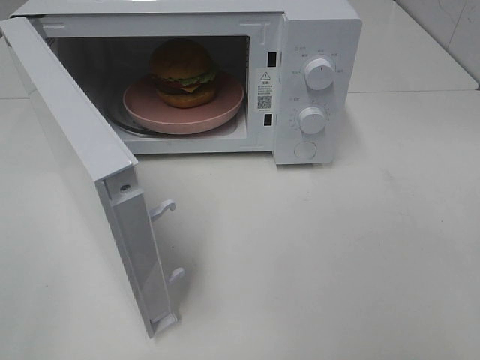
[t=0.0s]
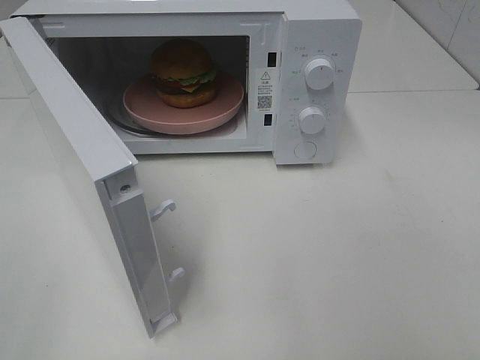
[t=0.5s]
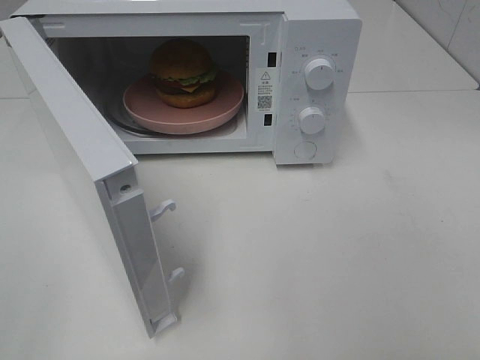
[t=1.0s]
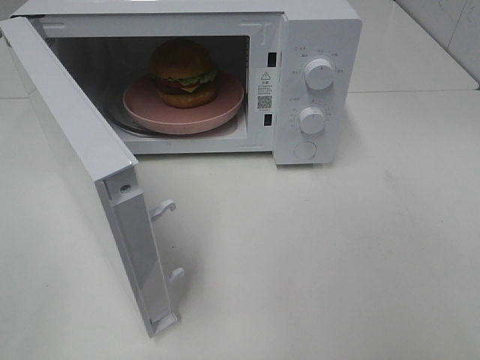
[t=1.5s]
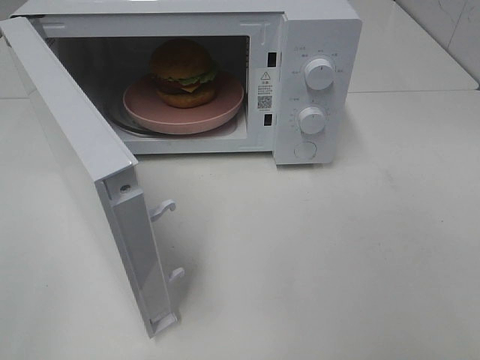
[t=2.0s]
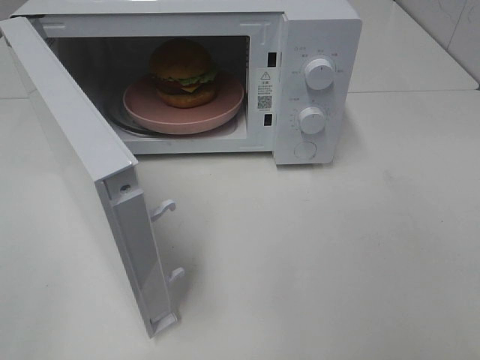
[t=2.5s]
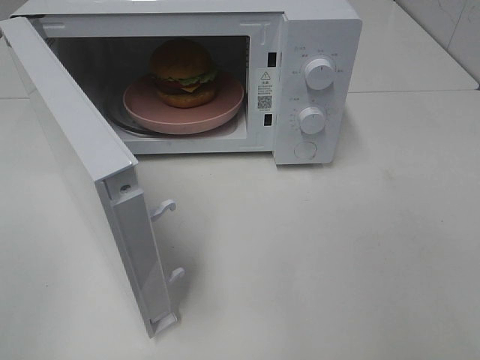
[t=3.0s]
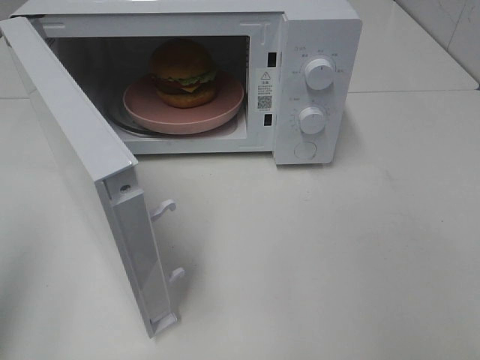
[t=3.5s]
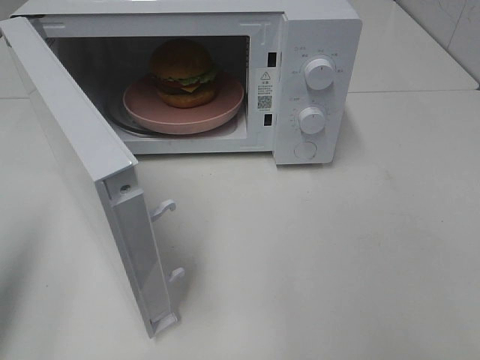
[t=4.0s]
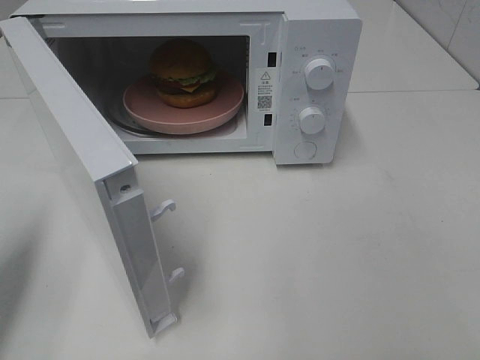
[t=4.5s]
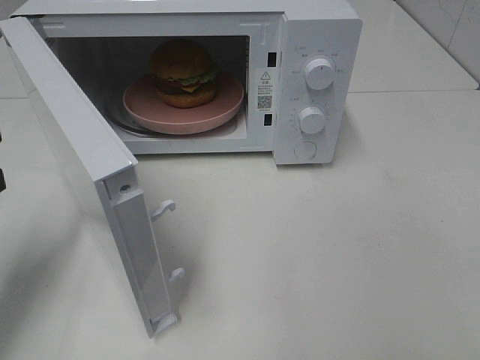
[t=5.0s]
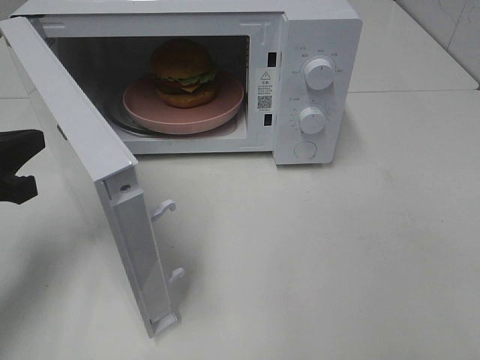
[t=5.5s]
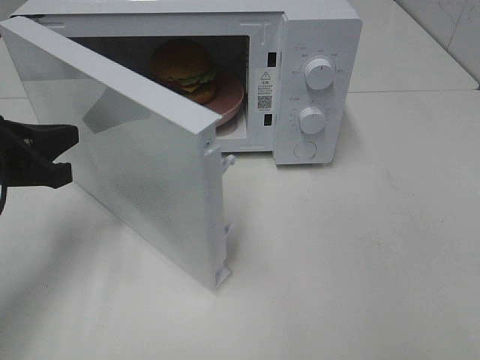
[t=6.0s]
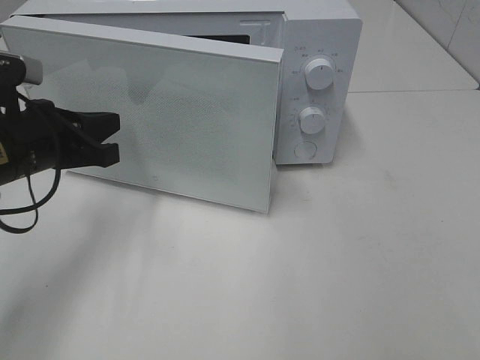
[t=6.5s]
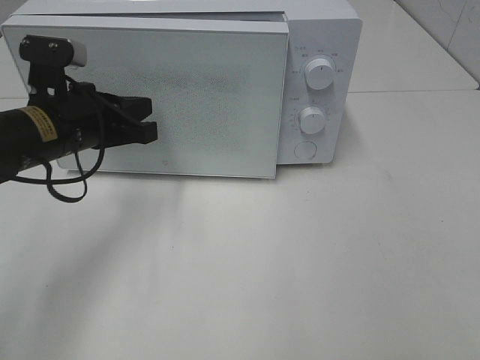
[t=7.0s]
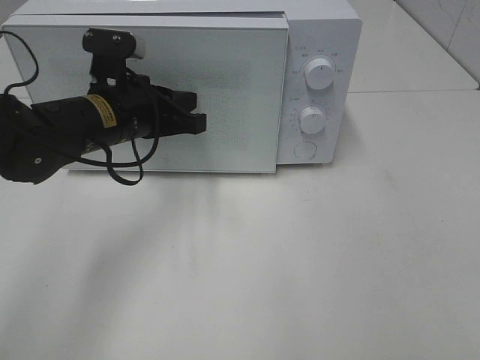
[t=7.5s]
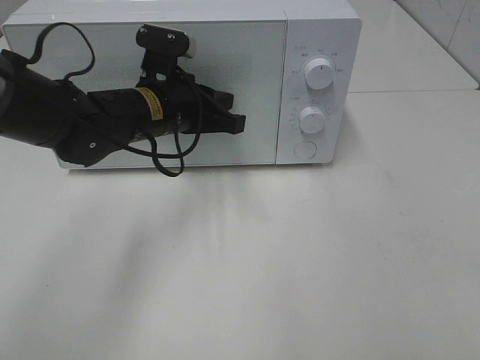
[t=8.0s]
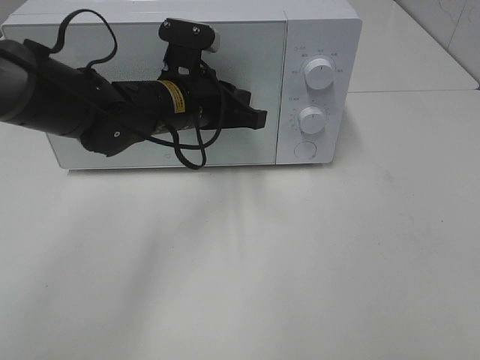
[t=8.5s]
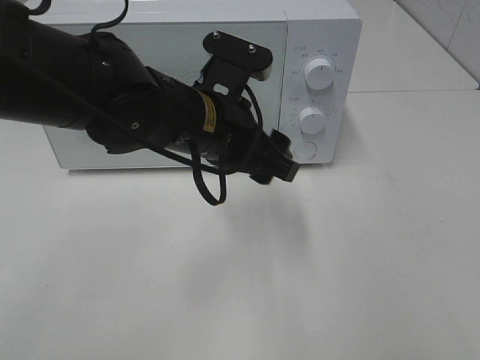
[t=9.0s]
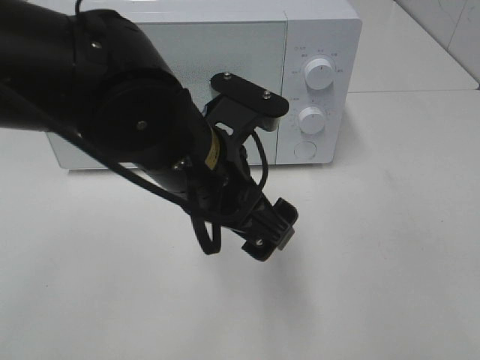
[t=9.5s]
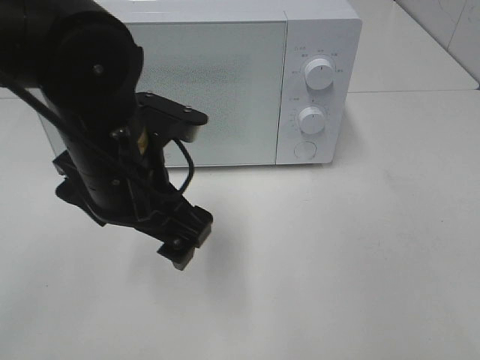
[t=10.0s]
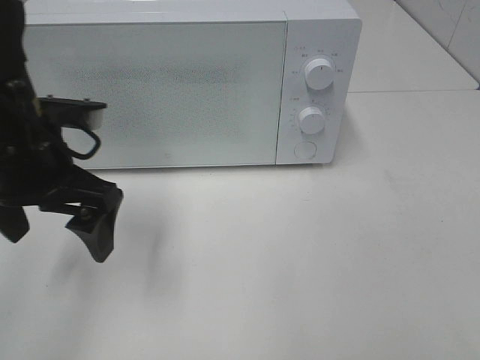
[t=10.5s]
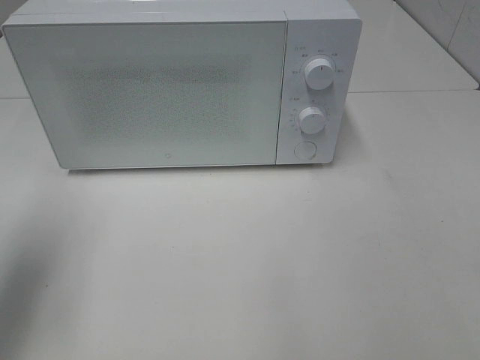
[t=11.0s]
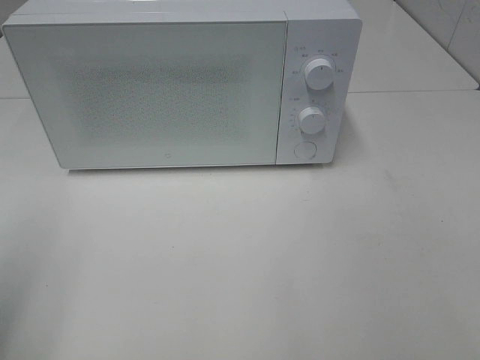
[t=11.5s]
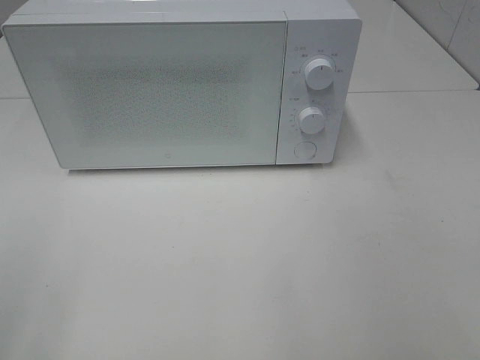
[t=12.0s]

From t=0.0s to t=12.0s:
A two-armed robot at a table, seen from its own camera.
Task of the whole recording: Heat the burger.
Step, from t=0.0s to t=8.5s: Left hand: close the microwave door.
From t=2.0s to t=4.0s: The left gripper is displaced forward by roughly 15 cm, and closes up.
From t=4.0s to t=6.0s: The left gripper moves forward, downward and to the right, roughly 15 cm.
From t=6.0s to t=8.0s: The left gripper goes about 20 cm to the right and forward.
From t=8.0s to t=10.0s: The left gripper shifts some 15 cm backward, and opens.
From t=10.0s to t=12.0s: The left gripper moves to the left and backward, some 30 cm.

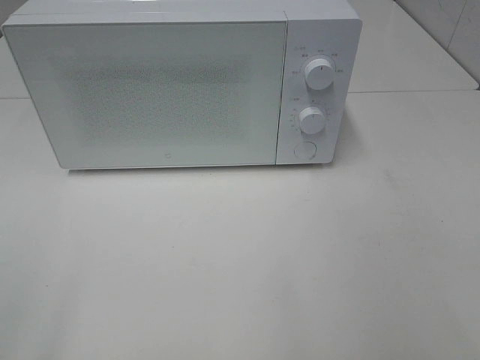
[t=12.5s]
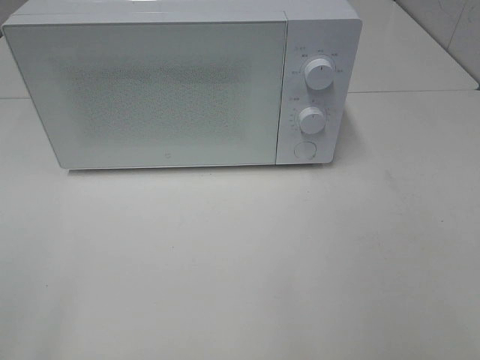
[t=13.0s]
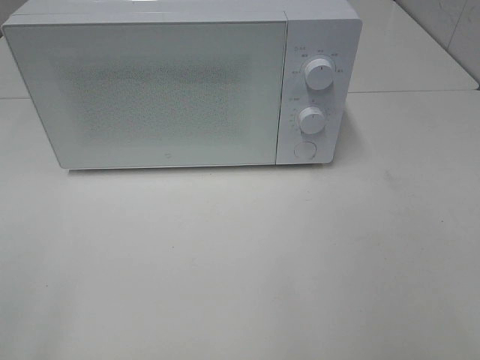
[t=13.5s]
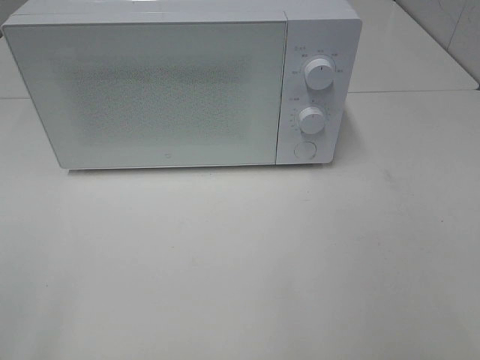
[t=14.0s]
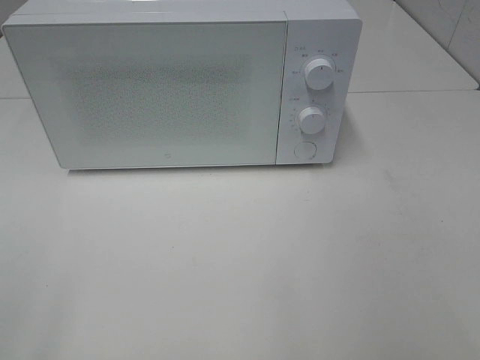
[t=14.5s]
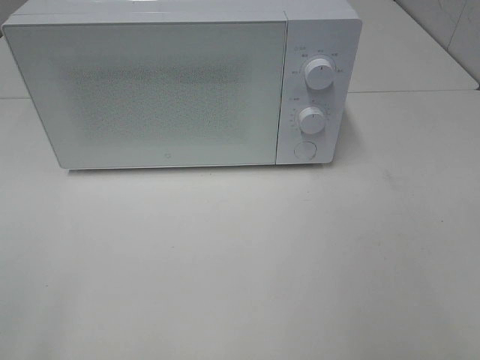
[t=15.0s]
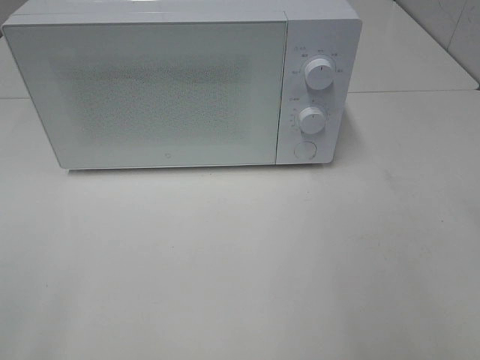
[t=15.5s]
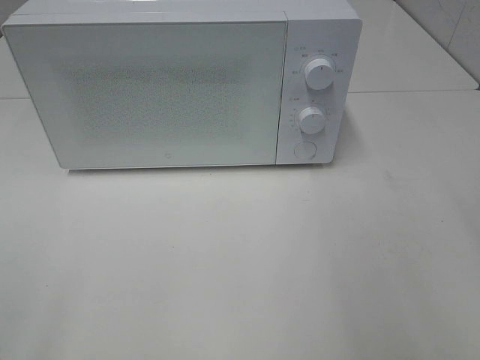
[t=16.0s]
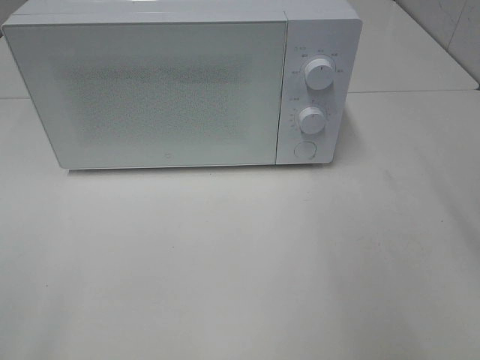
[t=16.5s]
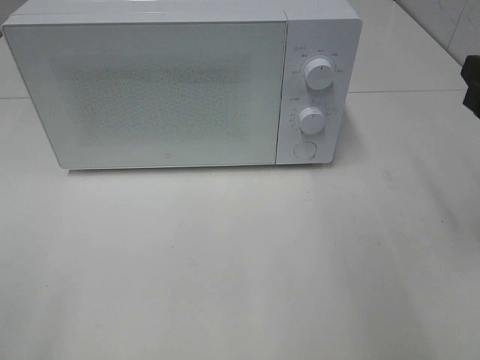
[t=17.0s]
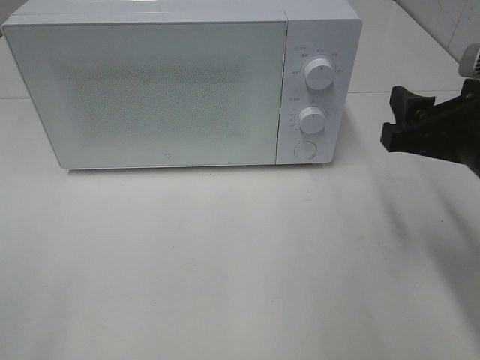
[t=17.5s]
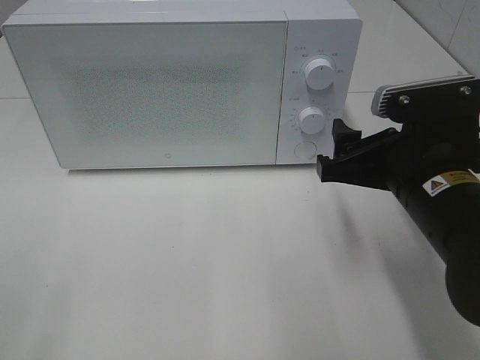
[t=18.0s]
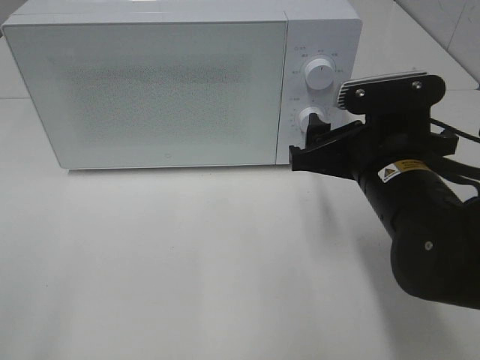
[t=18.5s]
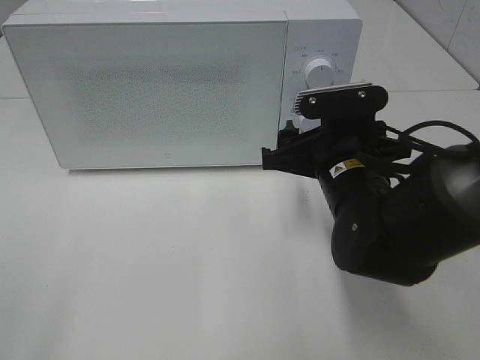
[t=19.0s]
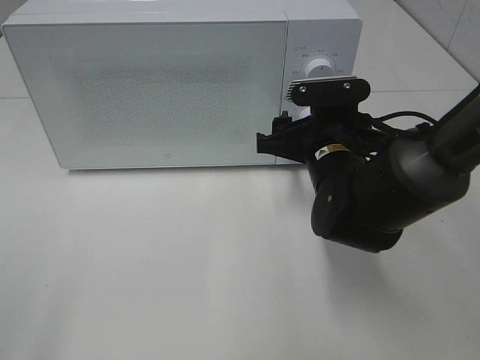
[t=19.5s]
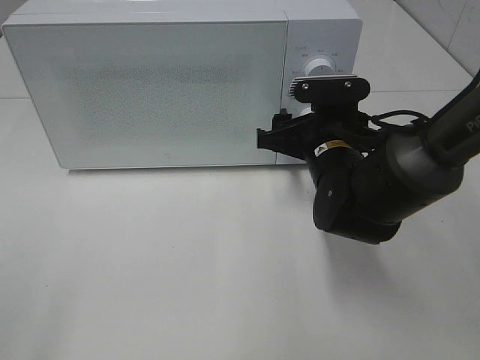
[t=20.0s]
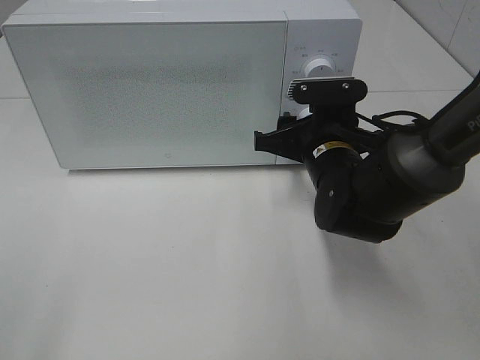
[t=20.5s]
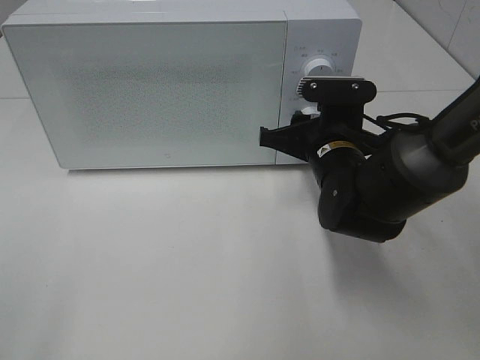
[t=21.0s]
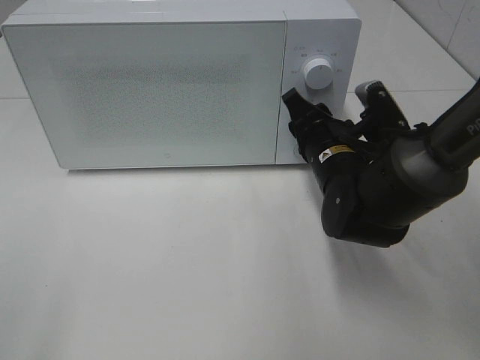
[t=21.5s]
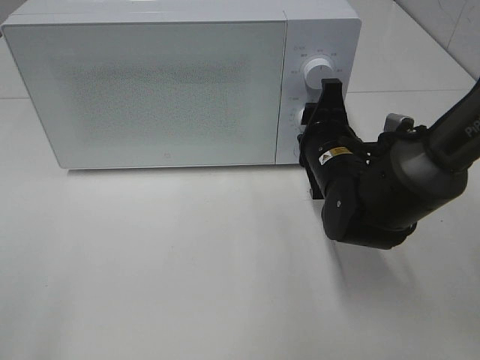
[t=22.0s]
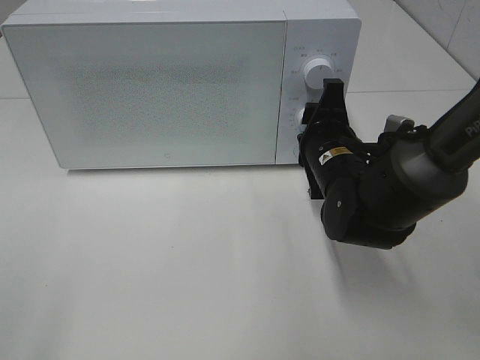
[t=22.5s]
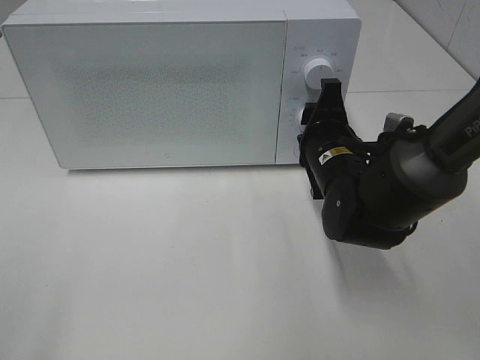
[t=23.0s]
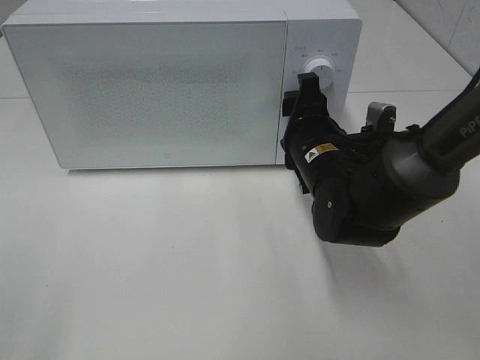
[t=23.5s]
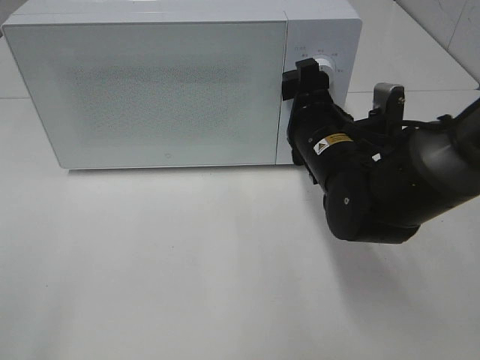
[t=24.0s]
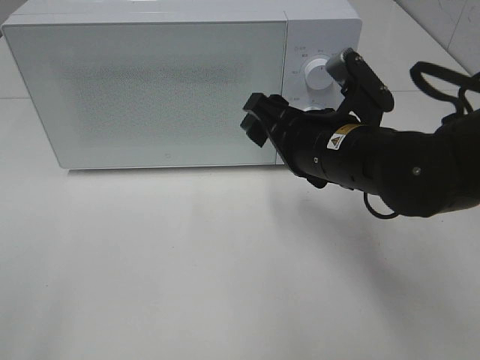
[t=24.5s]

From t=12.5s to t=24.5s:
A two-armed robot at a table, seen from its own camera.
Task of the whole recording: Heat the burger.
Step, from t=12.5s to t=23.0s: Right hand: twist timer button.
From t=12.5s to t=14.5s: Both grippers stay about where they are.
From t=16.5s to t=18.5s: The right gripper goes some 20 cm to the left and downward.
From t=18.5s to t=20.5s: The right gripper shifts roughly 10 cm forward.
From t=22.5s to t=24.5s: The right gripper is displaced upward and backward by roughly 10 cm, and opens up.

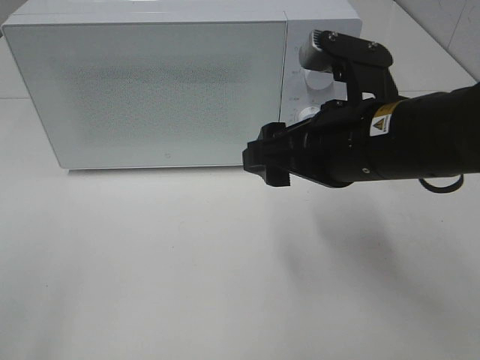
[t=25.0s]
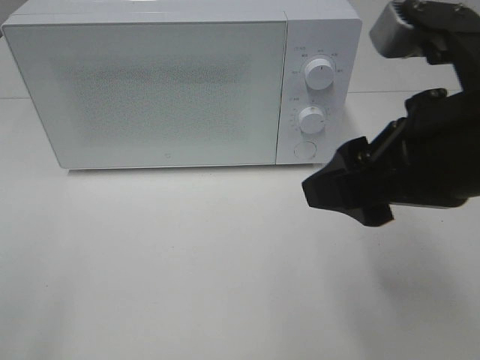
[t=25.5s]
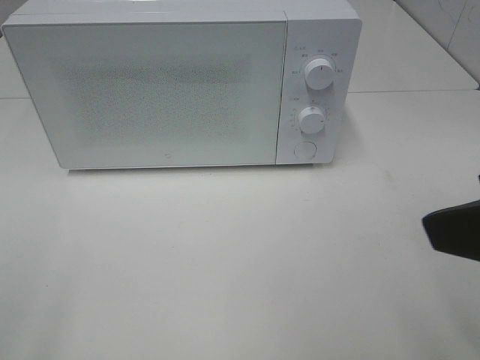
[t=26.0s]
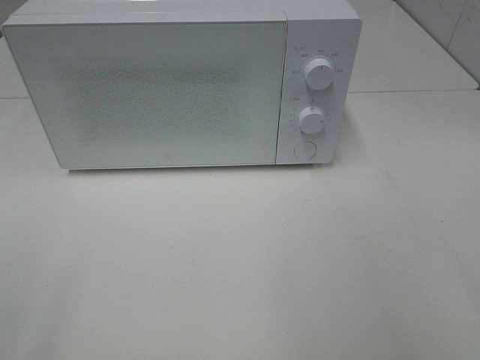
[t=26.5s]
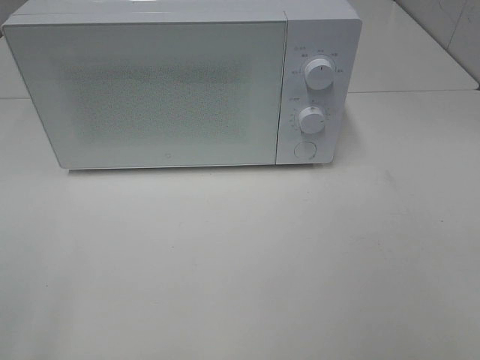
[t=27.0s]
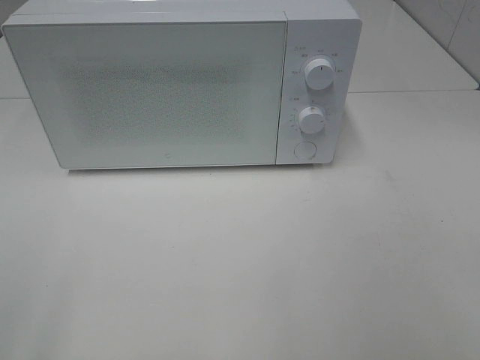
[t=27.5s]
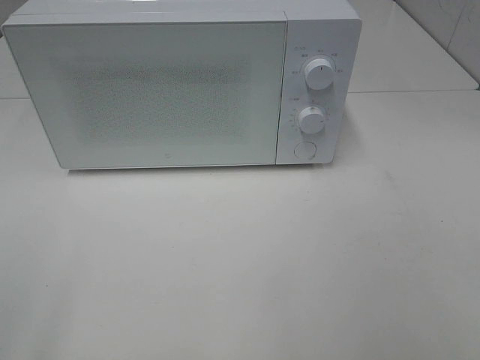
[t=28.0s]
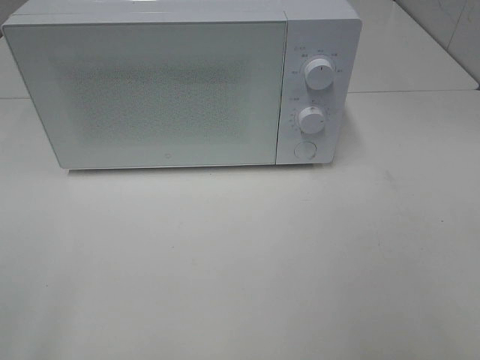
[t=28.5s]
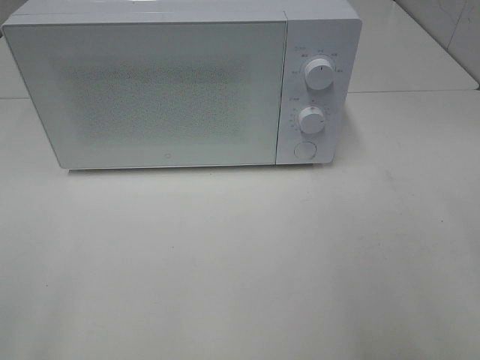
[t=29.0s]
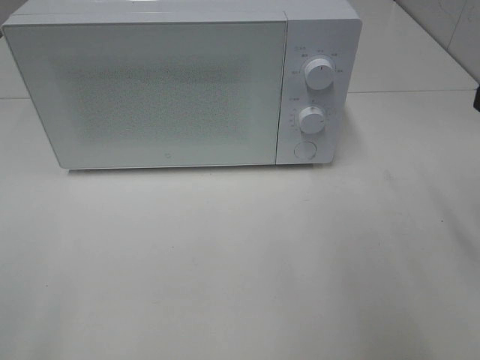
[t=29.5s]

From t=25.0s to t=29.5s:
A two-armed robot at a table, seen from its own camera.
Task of the whole recording: Heat the burger.
From t=25.0s to t=27.0s: The right gripper travels backward and to the right by approximately 30 cm.
